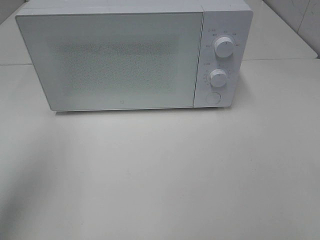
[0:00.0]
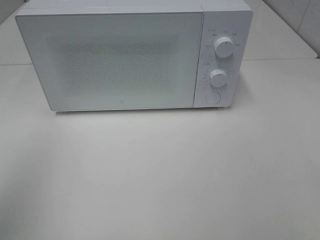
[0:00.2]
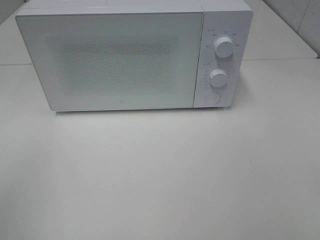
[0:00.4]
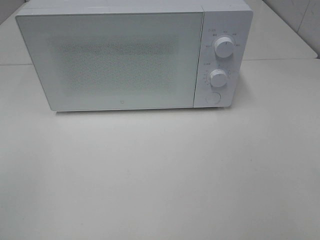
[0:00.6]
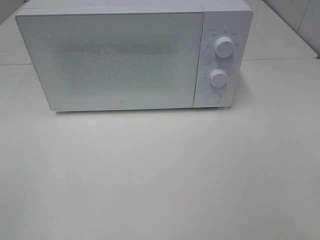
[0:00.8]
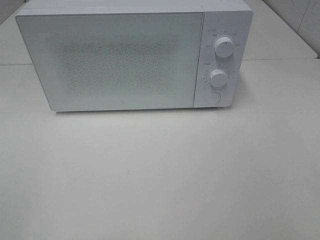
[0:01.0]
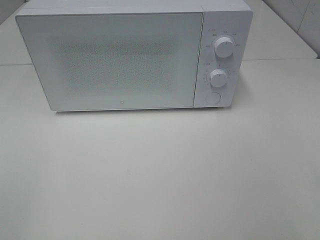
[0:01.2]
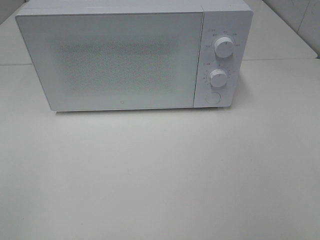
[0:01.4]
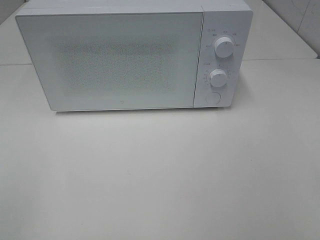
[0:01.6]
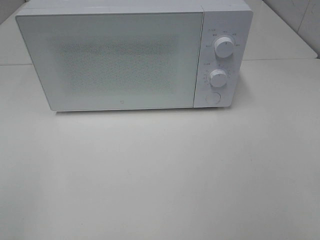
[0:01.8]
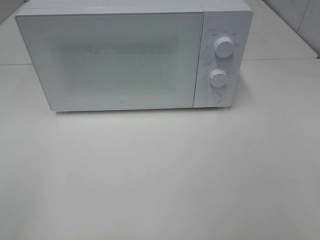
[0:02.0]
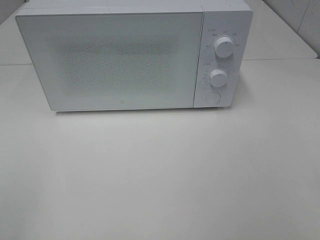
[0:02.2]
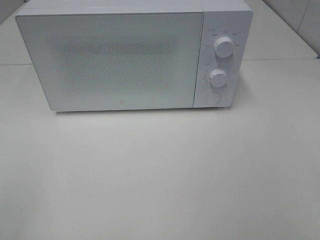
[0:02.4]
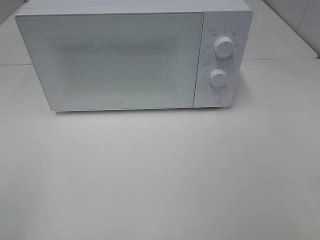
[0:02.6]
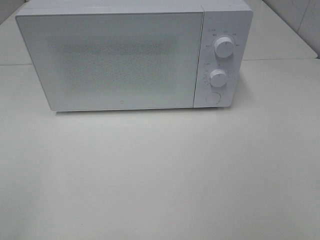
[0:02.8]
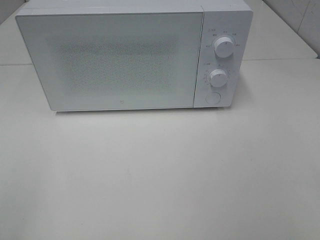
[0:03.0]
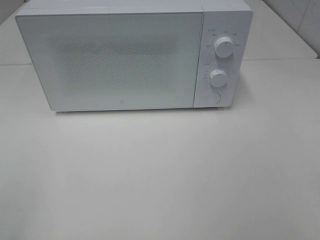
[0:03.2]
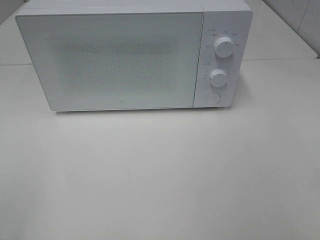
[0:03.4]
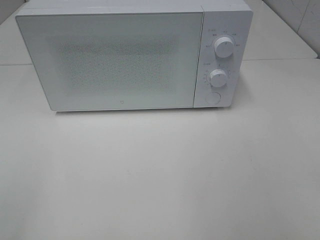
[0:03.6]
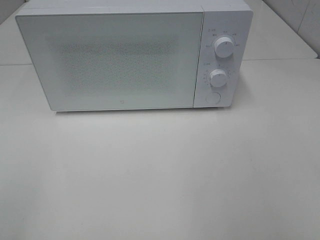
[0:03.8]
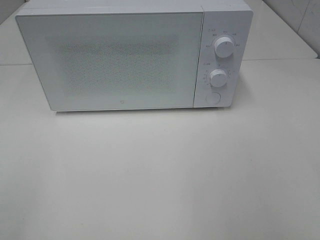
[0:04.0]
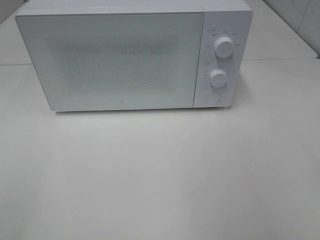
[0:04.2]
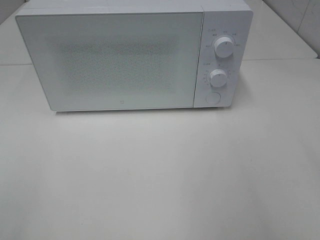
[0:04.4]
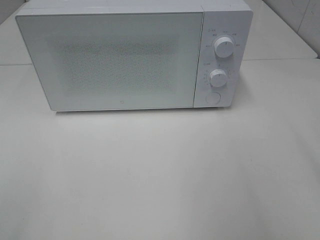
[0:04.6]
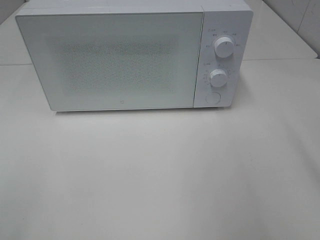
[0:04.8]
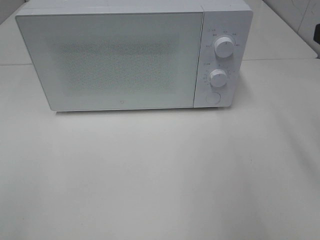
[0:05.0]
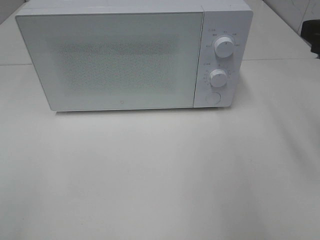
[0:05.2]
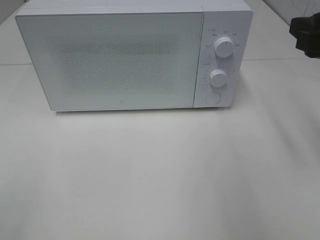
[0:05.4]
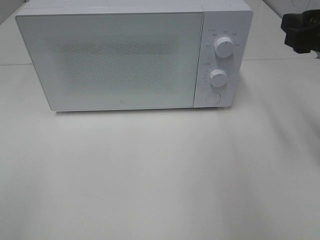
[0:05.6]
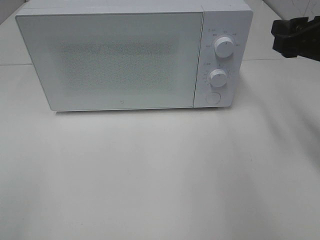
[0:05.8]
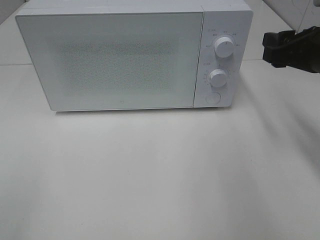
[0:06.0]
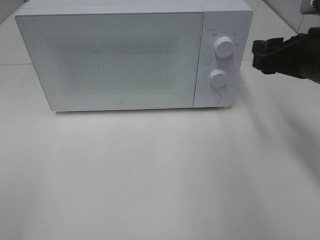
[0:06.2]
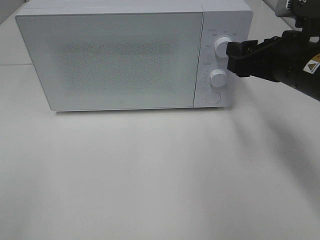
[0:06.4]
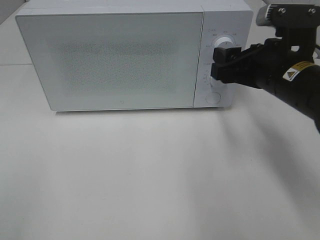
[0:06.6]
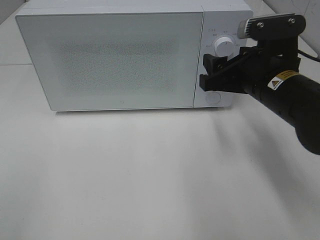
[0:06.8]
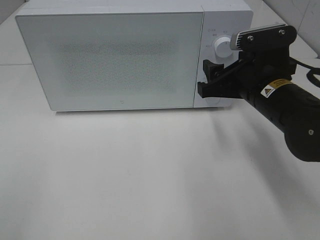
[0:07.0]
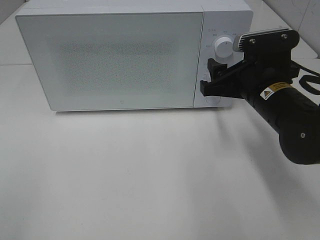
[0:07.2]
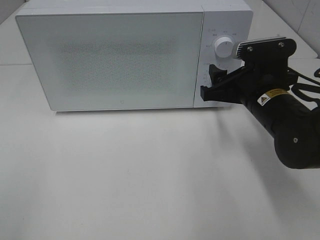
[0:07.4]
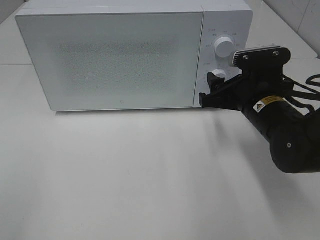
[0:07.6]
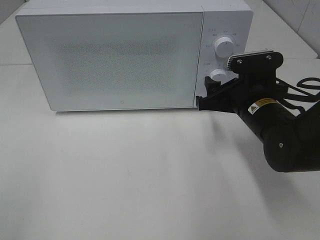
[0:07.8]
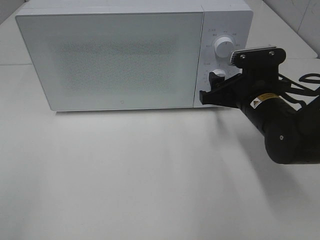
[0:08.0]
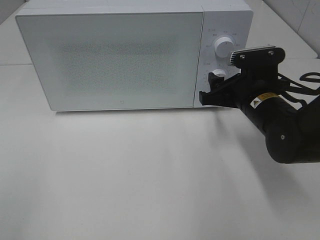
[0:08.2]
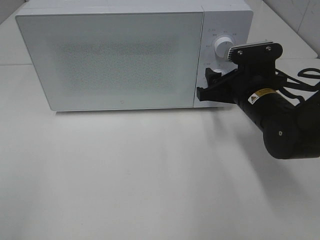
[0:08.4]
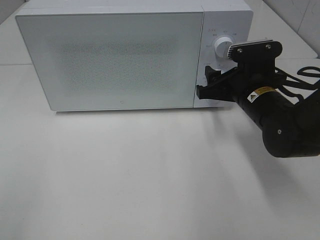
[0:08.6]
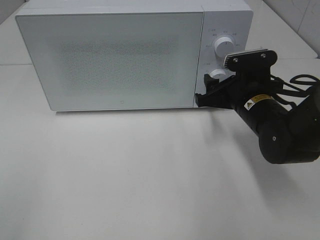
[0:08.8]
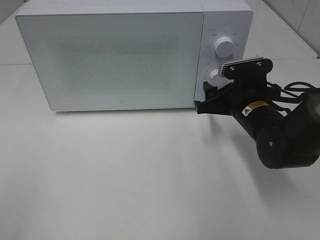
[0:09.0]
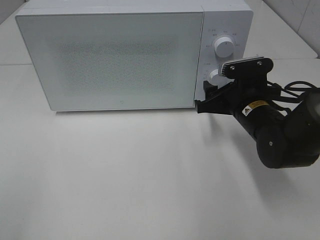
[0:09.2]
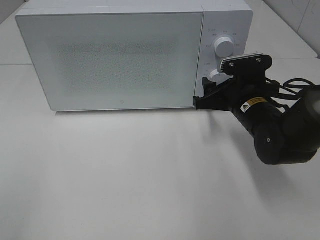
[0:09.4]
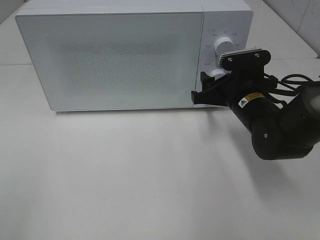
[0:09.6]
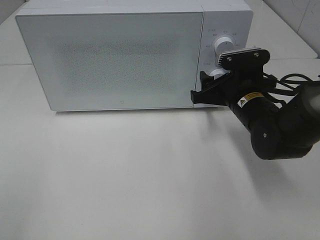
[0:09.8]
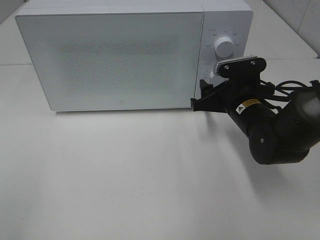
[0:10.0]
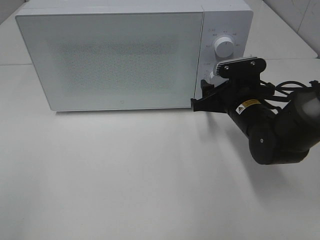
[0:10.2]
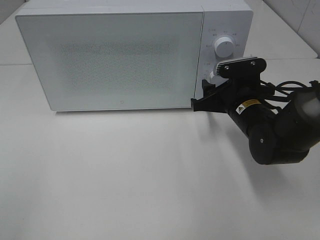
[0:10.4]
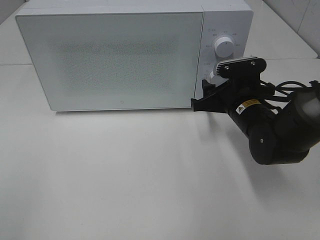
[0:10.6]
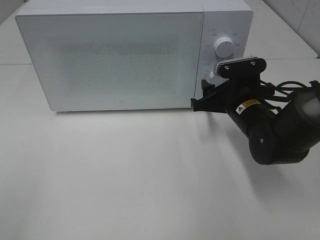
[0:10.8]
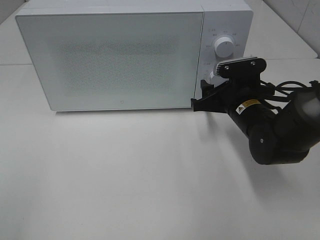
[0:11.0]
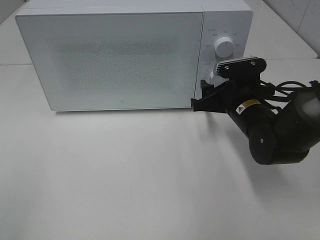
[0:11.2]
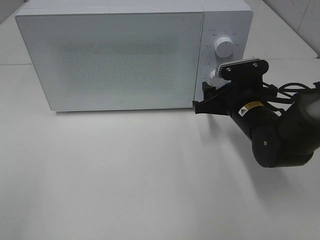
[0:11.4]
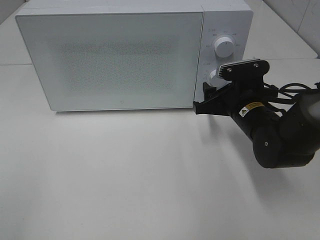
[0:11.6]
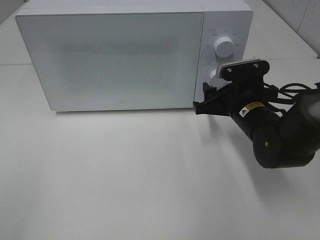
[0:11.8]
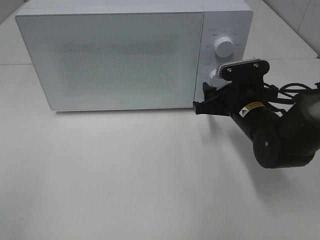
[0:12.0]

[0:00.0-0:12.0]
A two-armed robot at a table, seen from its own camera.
Task of the whole recording: Heat the burger.
0:00.0 to 0:01.6: The left gripper is displaced backward by approximately 20 cm.
0:04.4 to 0:06.0: The right gripper heads forward and downward, covering about 20 cm.
0:06.0 to 0:07.6: The right gripper goes about 10 cm downward and to the left.
0:07.6 to 0:10.4: There are only small adjustments of the grippers.
0:10.4 to 0:12.0: Both grippers stay put.

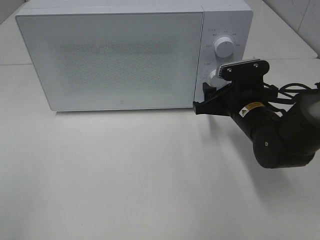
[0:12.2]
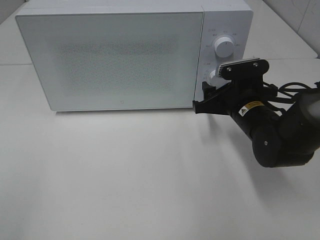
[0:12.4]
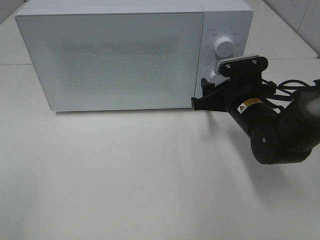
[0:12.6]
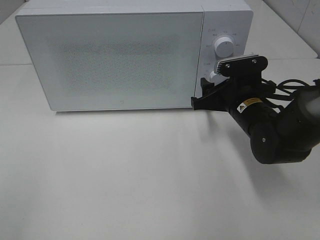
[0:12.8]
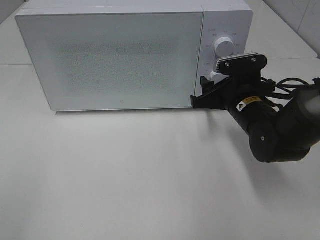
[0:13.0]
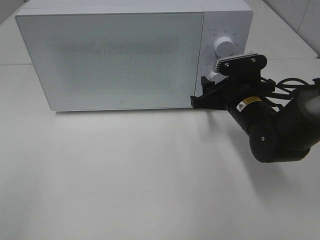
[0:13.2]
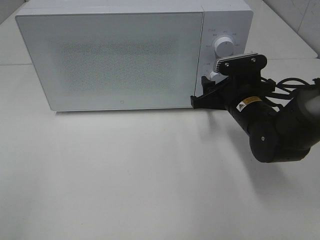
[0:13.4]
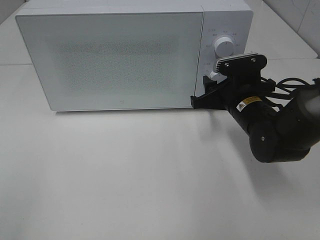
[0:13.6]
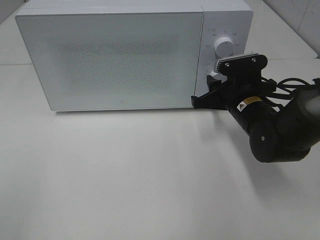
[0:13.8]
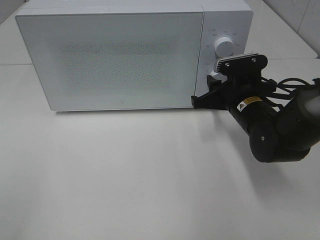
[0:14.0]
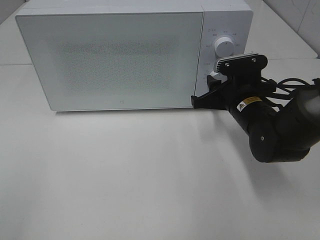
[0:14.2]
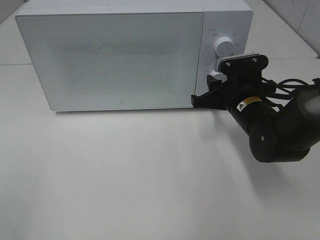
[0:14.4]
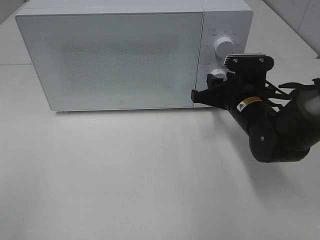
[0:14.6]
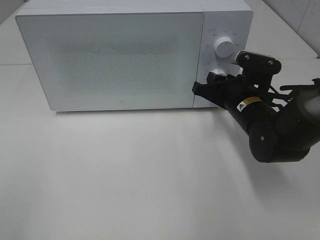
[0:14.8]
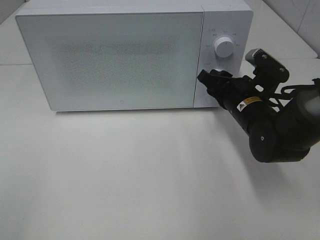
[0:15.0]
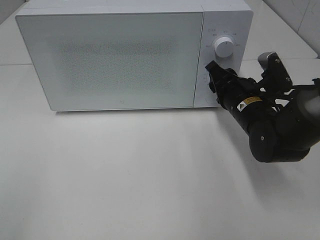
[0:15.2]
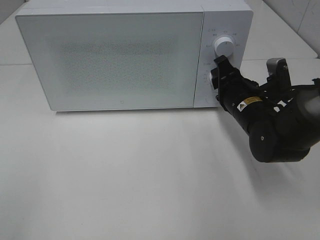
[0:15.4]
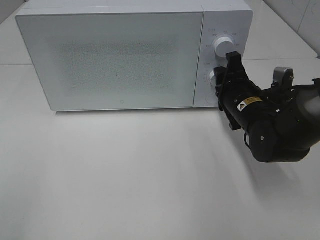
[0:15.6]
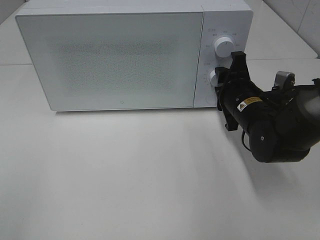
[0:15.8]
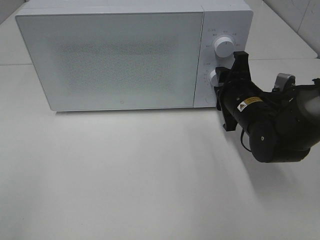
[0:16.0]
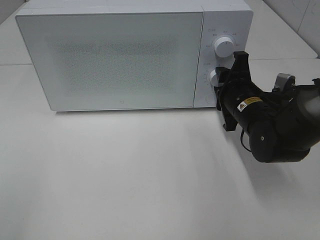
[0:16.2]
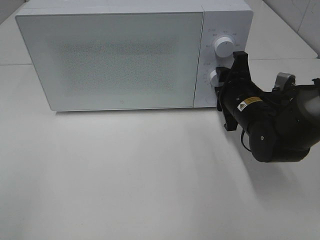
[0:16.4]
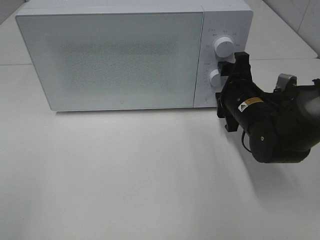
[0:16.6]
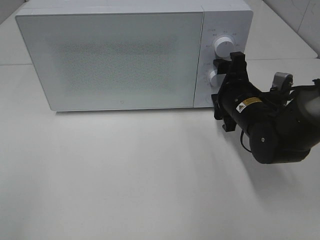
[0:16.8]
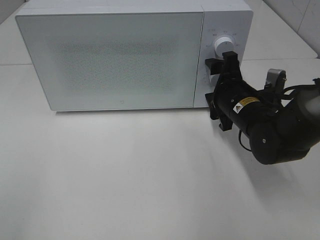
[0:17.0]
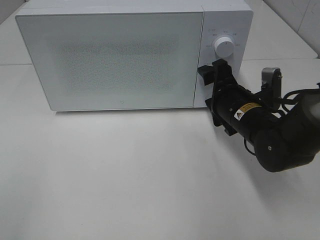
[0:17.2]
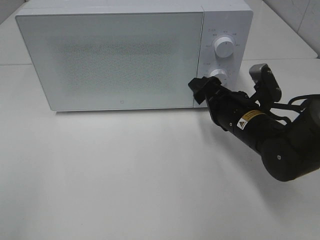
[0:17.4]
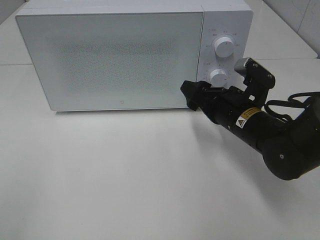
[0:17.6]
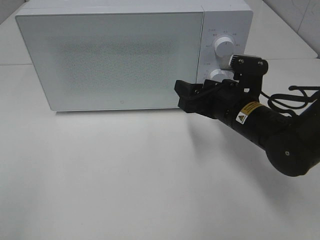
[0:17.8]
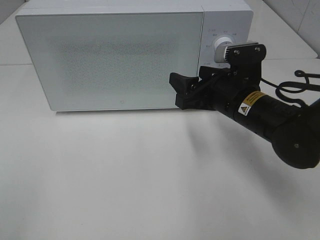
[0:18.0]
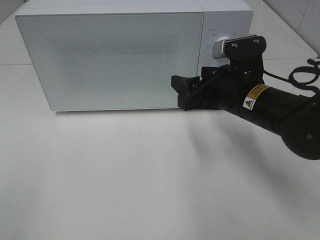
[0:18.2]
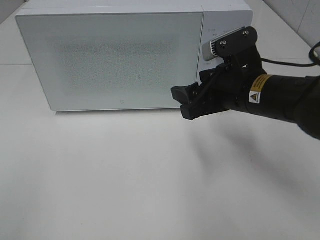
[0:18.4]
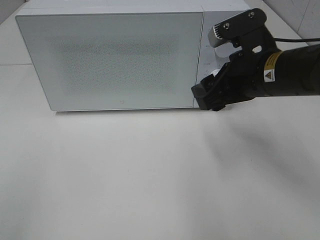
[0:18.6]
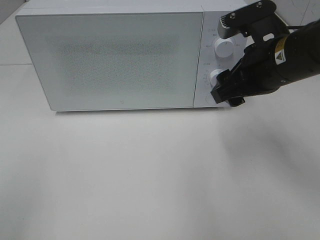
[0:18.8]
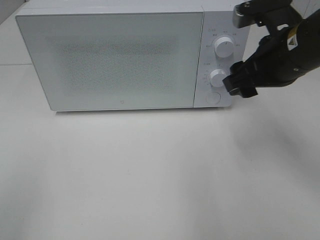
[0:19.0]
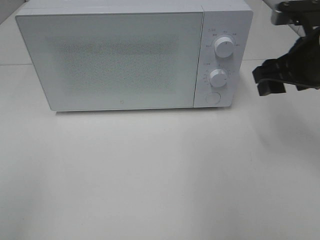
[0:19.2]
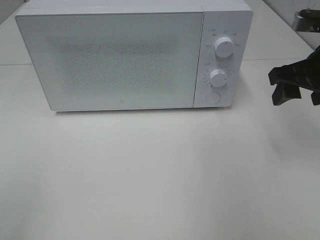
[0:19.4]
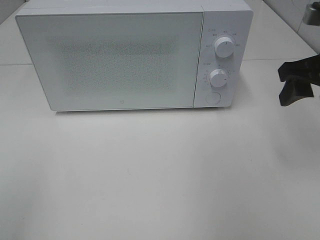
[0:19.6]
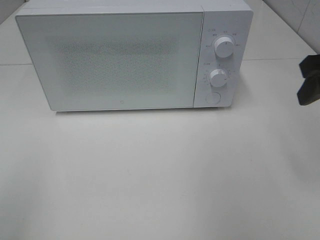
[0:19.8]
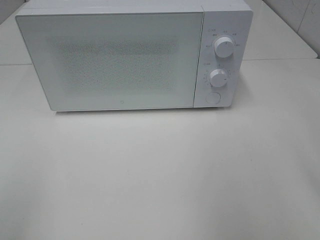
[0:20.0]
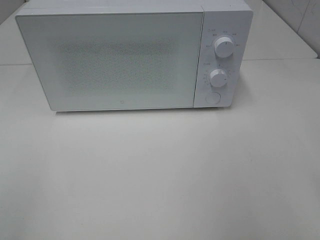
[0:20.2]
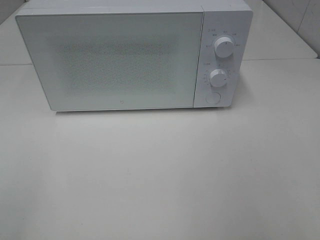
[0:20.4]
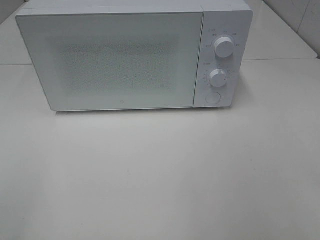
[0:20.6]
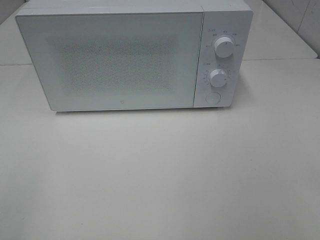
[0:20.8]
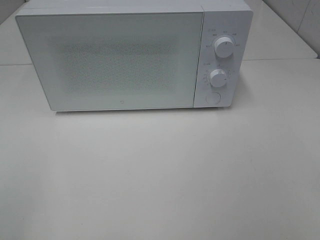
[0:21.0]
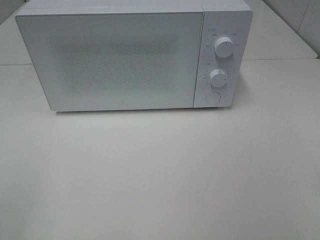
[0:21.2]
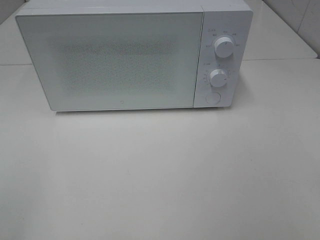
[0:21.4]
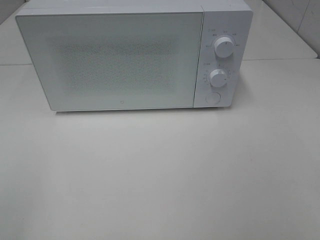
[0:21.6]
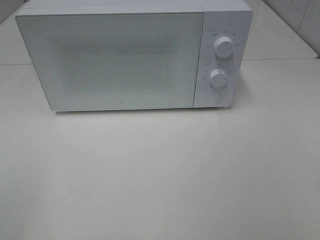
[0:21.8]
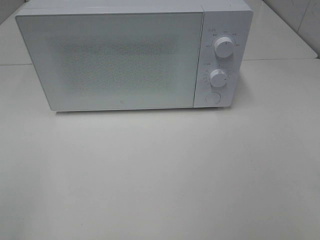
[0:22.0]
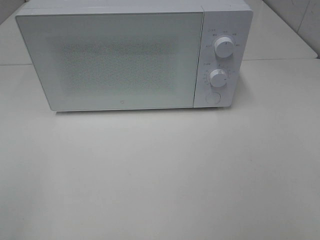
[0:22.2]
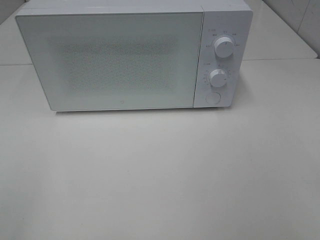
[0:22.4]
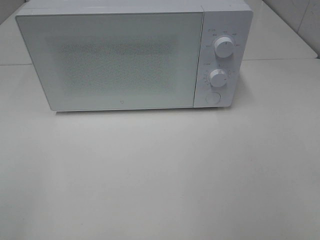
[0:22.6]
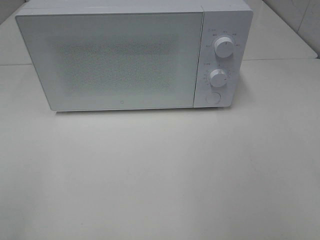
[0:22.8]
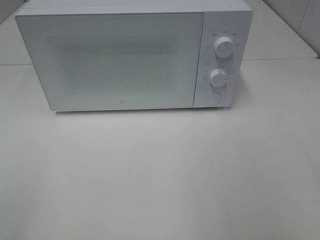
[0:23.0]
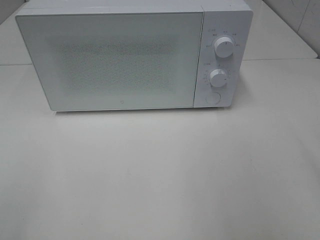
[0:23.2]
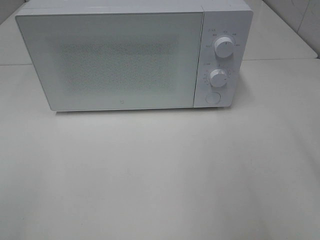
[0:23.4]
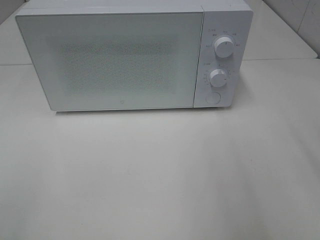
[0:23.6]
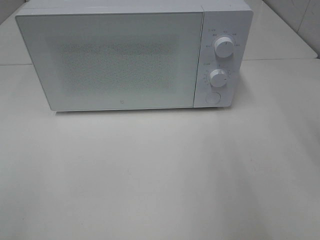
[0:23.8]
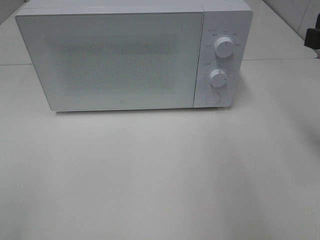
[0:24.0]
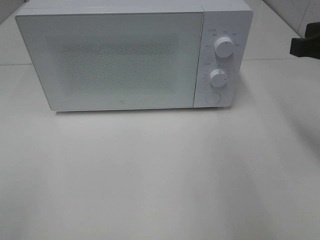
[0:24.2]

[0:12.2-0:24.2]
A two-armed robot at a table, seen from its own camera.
Task of the whole recording: Heat the burger.
Step, 0:12.2 to 0:16.4: Right hand: twist timer button.
0:12.2 to 0:13.8: Neither gripper changes place.
0:15.2 to 0:16.6: The right gripper opens its fingers.
0:16.6 to 0:18.2: The right gripper shifts roughly 5 cm upward.
0:18.2 to 0:19.8: The right gripper shifts roughly 20 cm upward and to the right.
0:19.8 to 0:21.2: The right gripper heads backward, covering roughly 25 cm.
0:22.6 to 0:24.2: The right gripper heads forward, covering roughly 20 cm, and closes.
